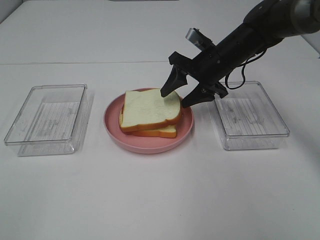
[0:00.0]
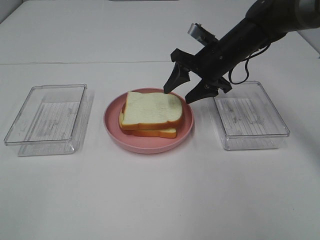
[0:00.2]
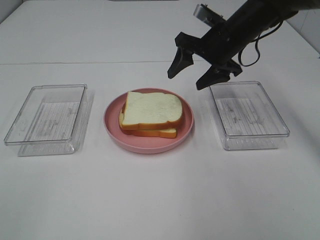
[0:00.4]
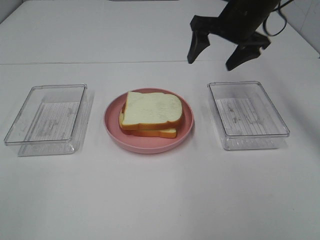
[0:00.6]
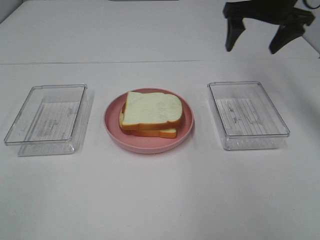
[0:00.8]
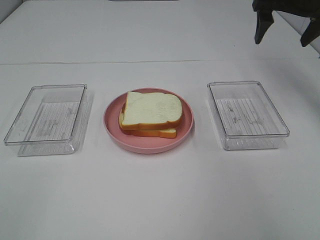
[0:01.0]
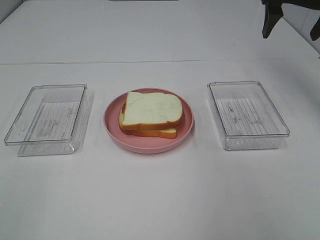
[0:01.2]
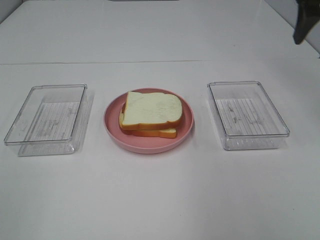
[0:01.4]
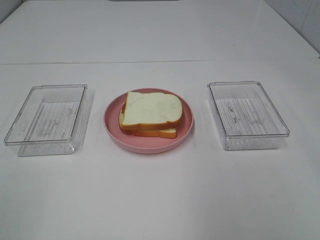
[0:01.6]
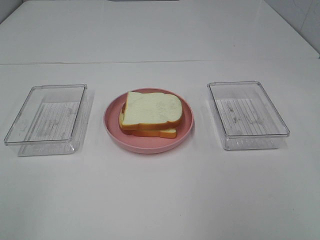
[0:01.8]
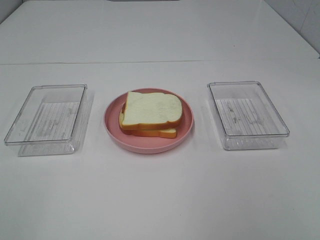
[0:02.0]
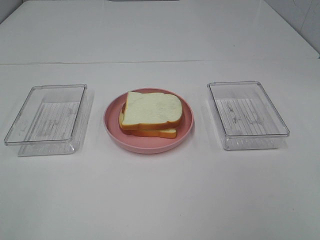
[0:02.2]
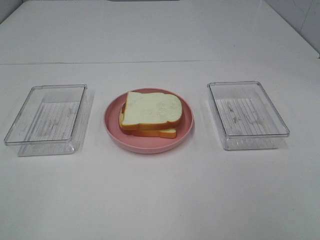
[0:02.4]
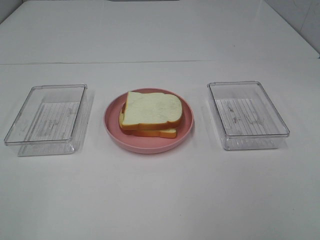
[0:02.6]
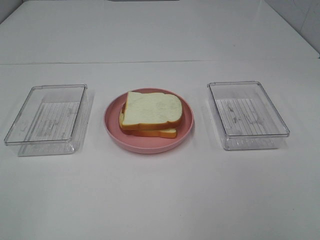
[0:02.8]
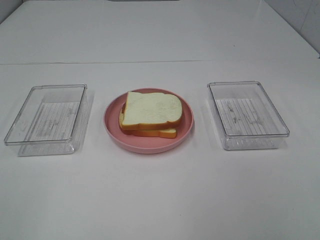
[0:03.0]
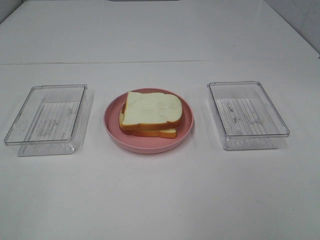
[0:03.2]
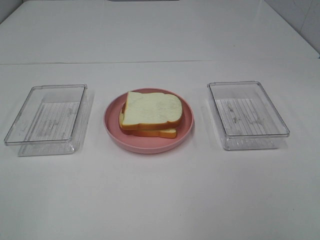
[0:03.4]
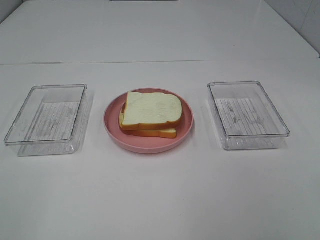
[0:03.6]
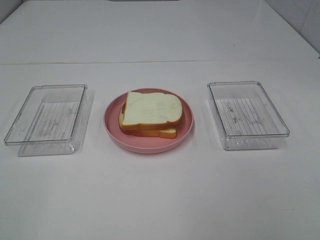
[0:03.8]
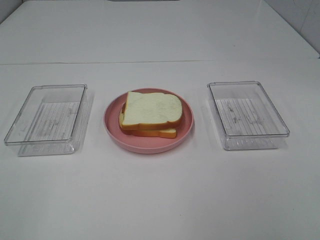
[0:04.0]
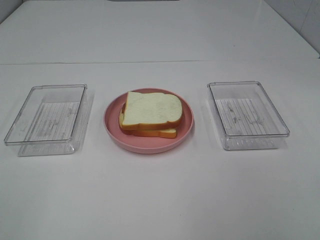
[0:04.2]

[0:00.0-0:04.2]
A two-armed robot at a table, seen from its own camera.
Task of the whole recording: Make sandwiches.
0:00.0 to 0:01.4: The right gripper travels upward, to the right and backward by approximately 25 cm.
0:01.4 to 0:02.8: The right gripper moves backward, about 30 cm.
0:02.8 to 0:04.2: Both grippers stay put.
